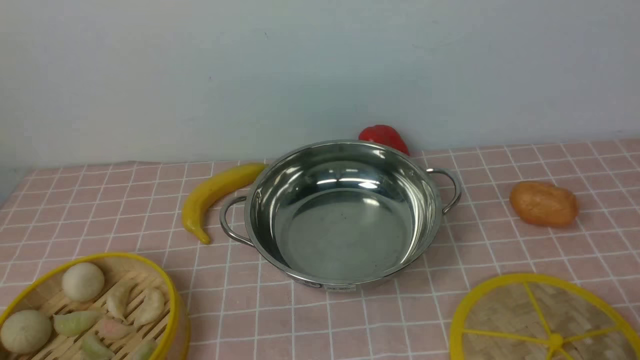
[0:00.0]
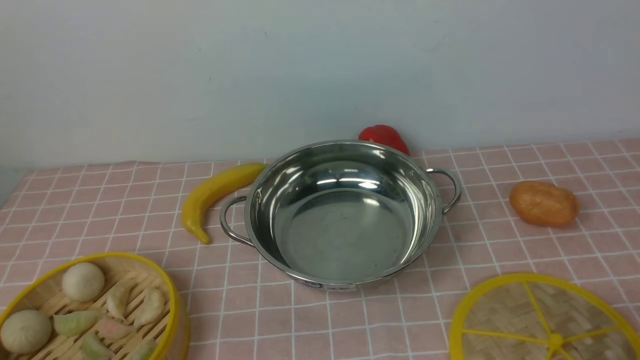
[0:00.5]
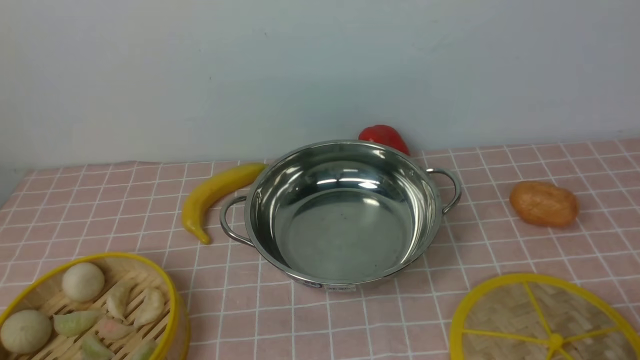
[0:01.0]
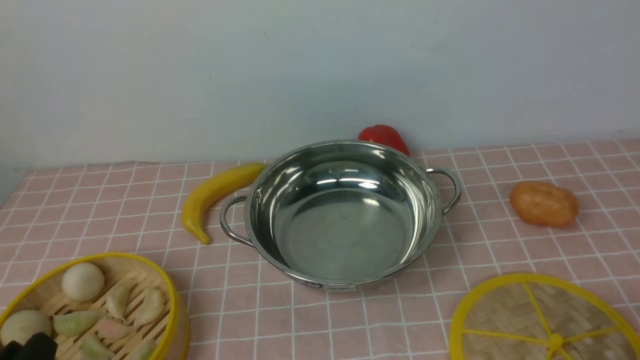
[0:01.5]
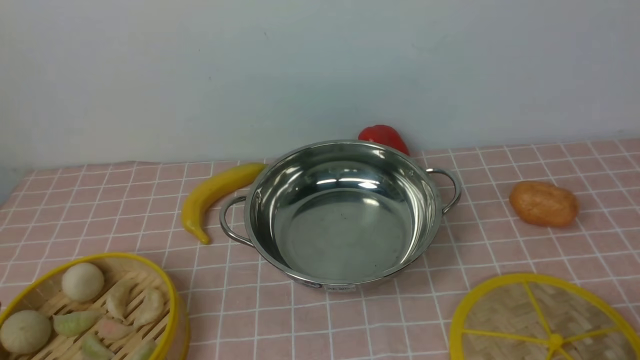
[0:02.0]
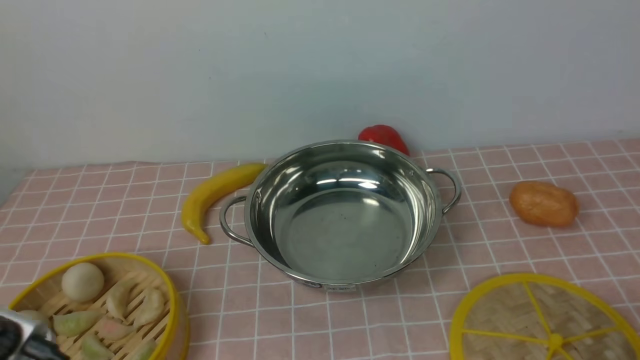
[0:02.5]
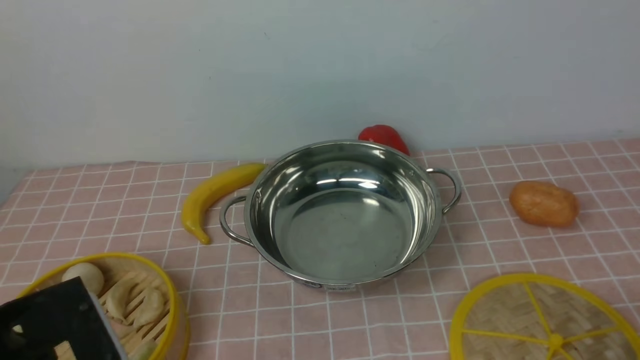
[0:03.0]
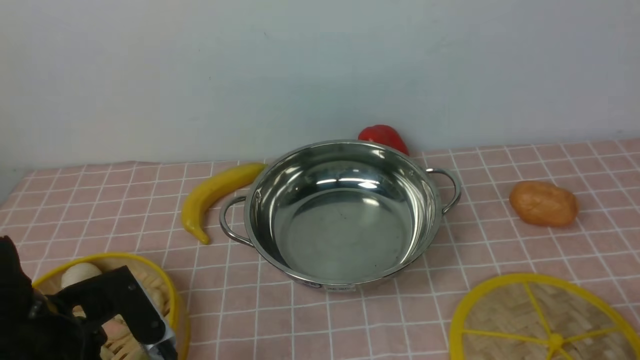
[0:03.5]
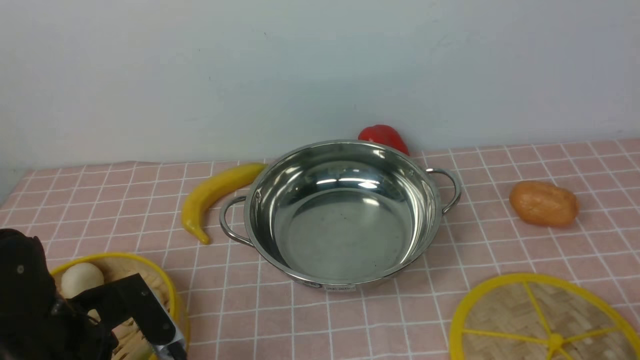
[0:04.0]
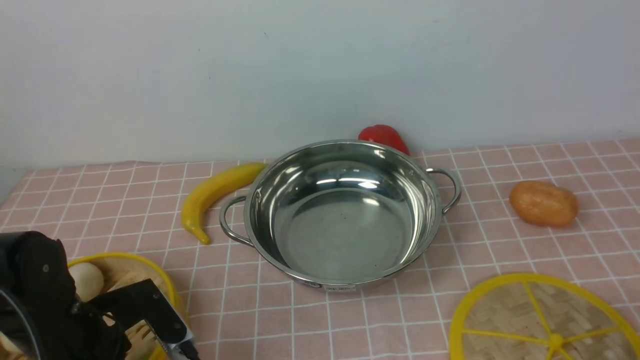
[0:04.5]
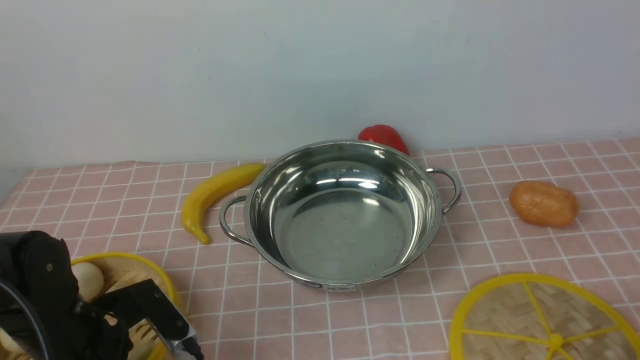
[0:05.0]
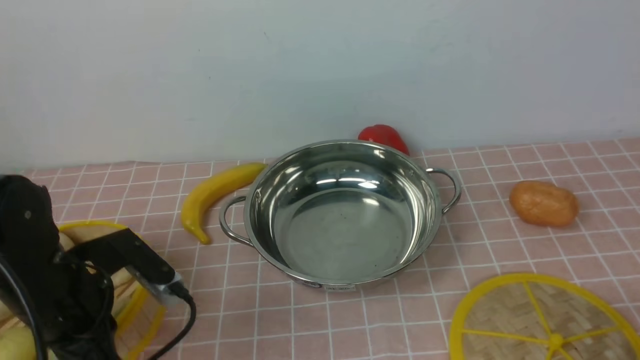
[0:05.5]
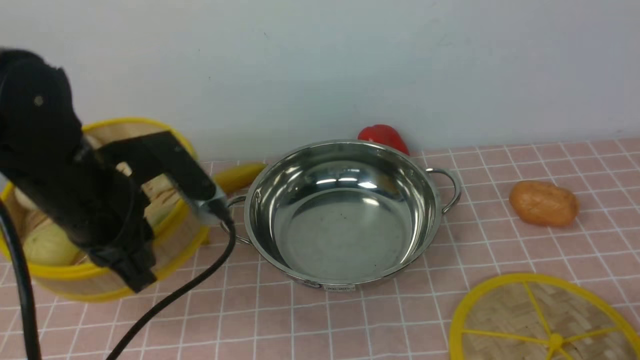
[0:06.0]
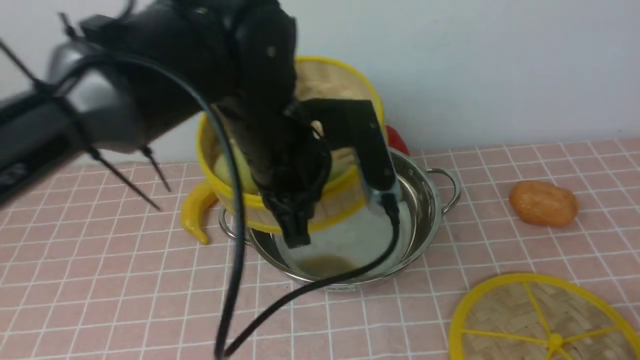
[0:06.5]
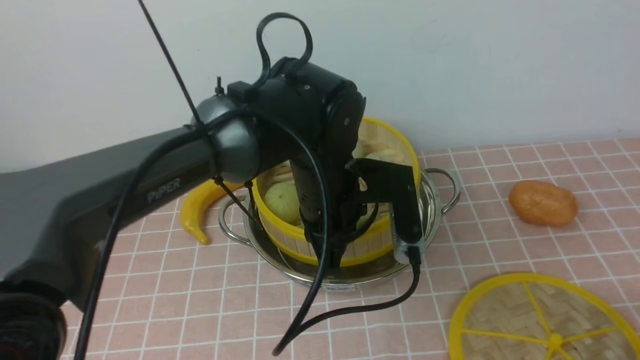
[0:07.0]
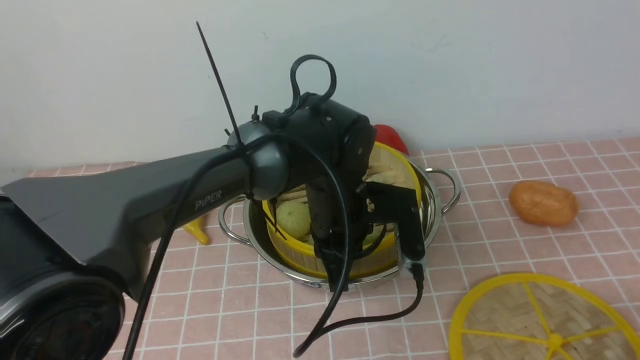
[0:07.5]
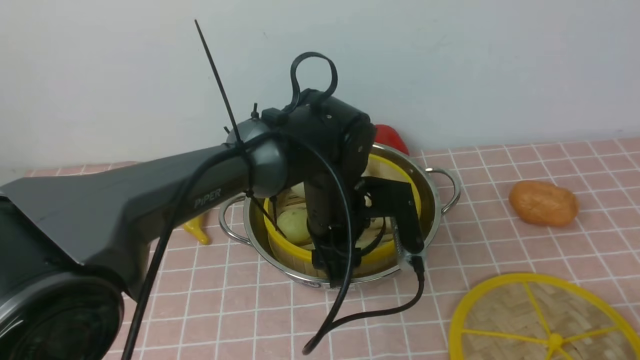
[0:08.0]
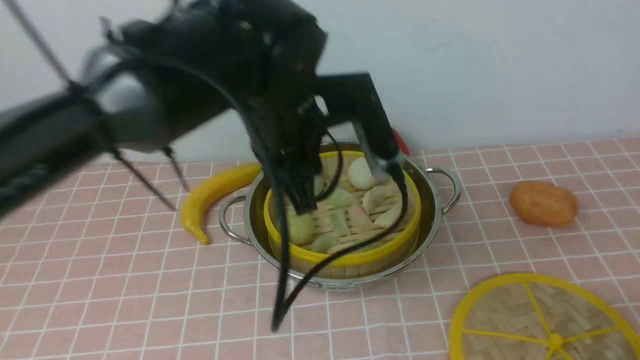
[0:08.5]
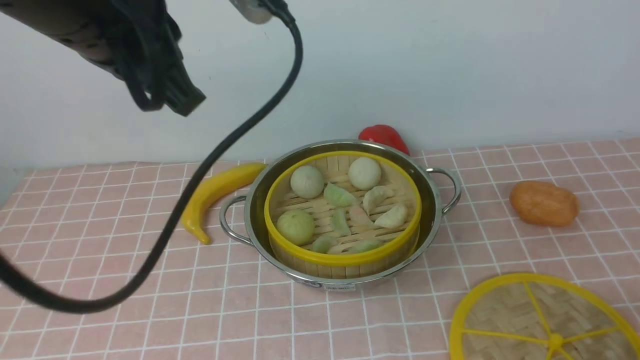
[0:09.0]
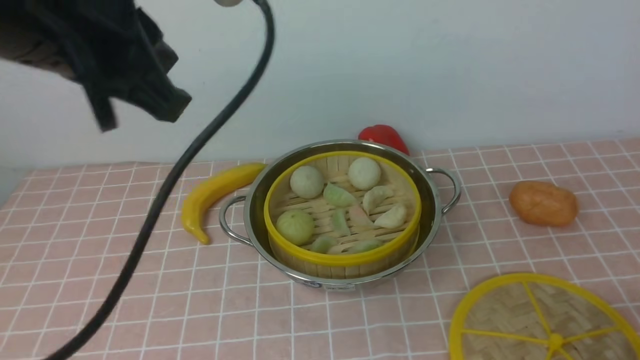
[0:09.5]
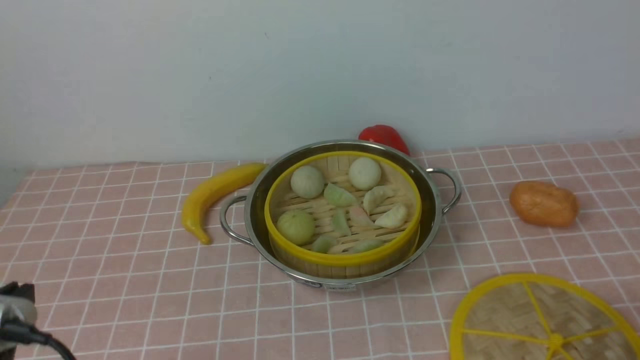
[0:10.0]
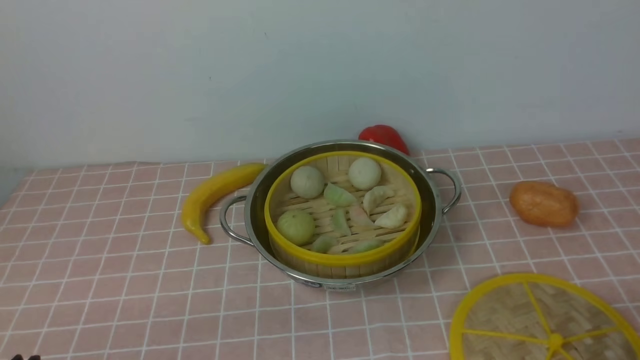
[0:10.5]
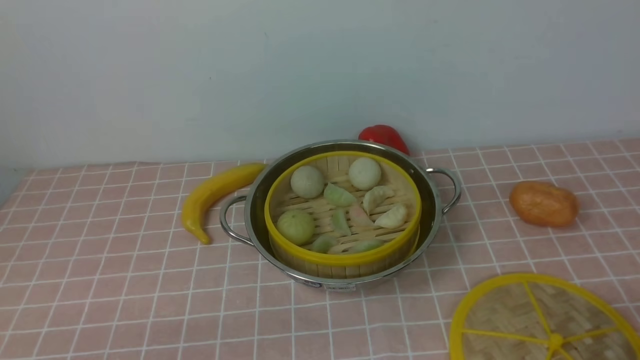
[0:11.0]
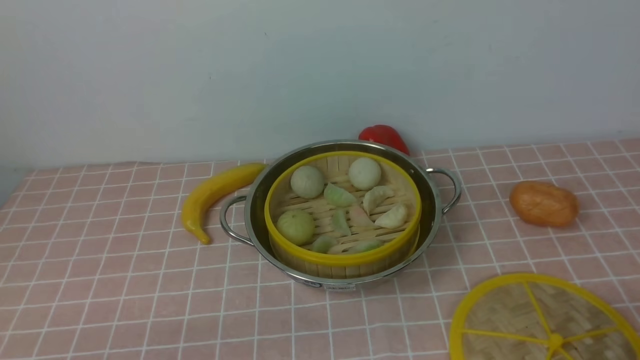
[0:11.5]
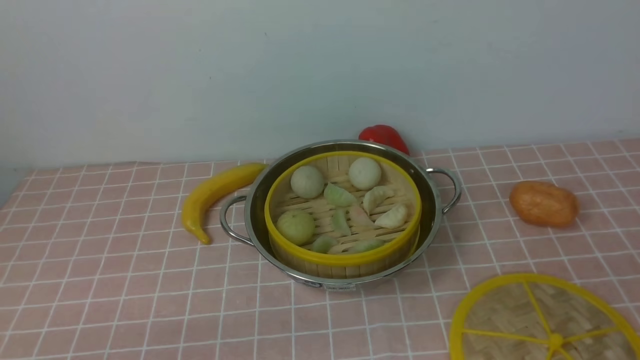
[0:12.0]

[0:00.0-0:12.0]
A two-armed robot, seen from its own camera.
Task of the whole recording: place the steamer in the pot on the pink tablecloth, and put the lid on the steamer.
Step, 0:00.0 to 0:05.5: use the left arm to lift the steamer closest to it.
Step, 0:06.0 to 0:08.0: use the left arm to put the steamer into the iron steamer pot in the middle.
0:02.0 to 0:04.0: The left gripper is displaced forward by about 15 cm, and opens up.
0:04.0 to 0:06.0: The left gripper shifts about 10 cm upward and forward, and closes up.
0:06.0 to 0:08.0: The left gripper is displaced to the right, downward and forward by approximately 25 cm, and opens its fingers.
0:08.0 to 0:10.0: The left gripper moves to the left, backward and upward, roughly 35 cm, and closes.
0:10.0 to 0:12.0: The left gripper moves downward and backward, some 15 cm.

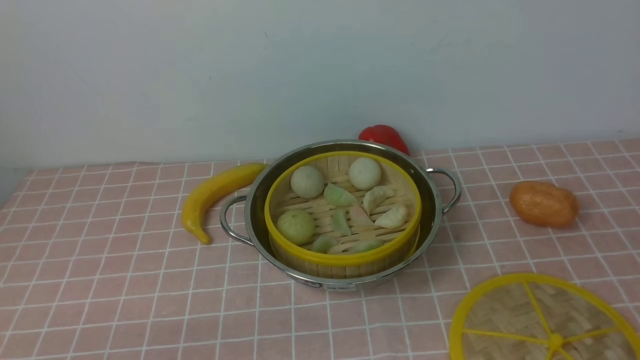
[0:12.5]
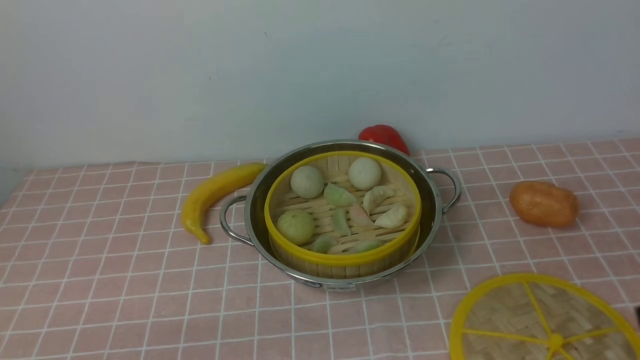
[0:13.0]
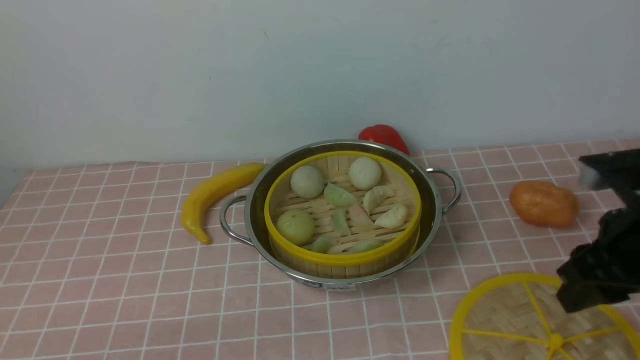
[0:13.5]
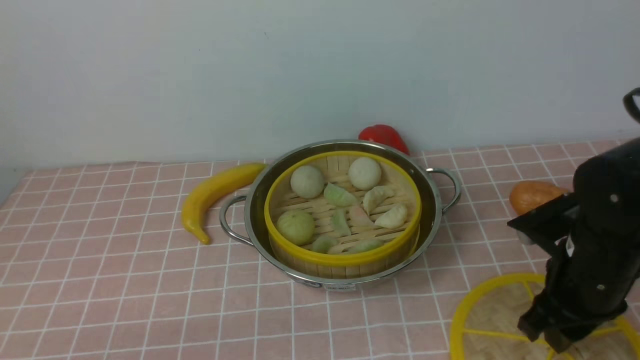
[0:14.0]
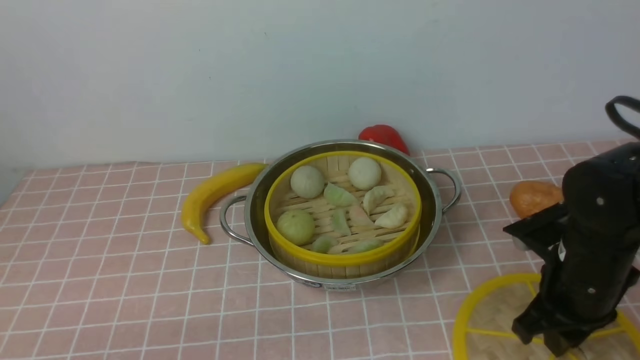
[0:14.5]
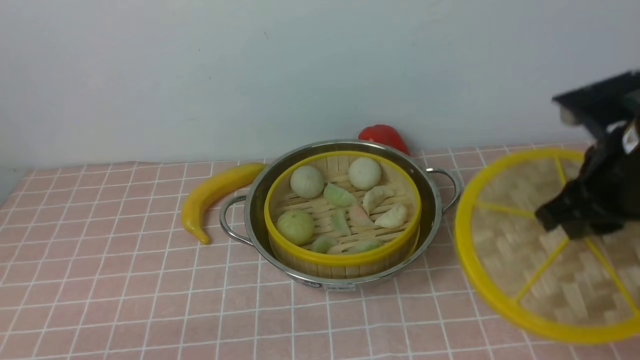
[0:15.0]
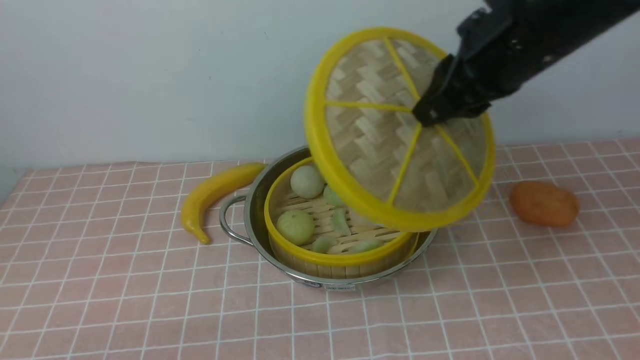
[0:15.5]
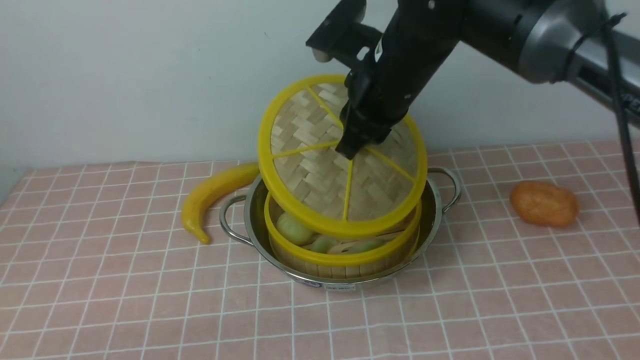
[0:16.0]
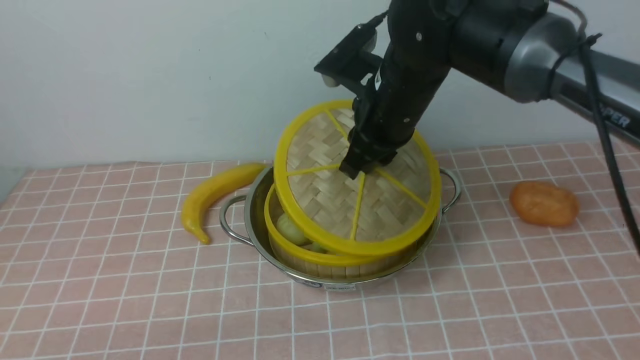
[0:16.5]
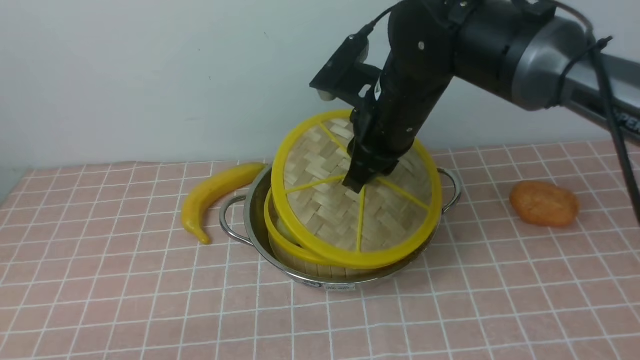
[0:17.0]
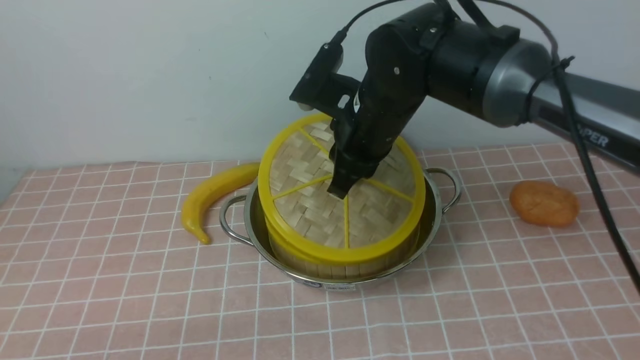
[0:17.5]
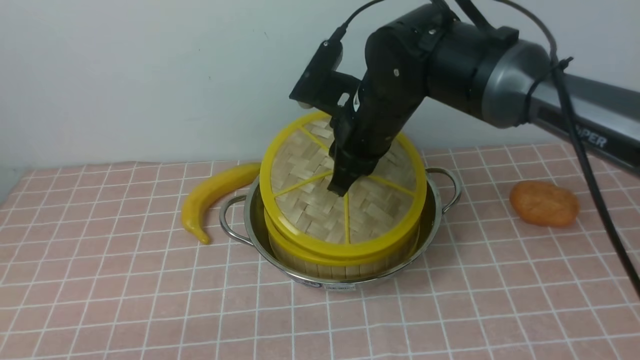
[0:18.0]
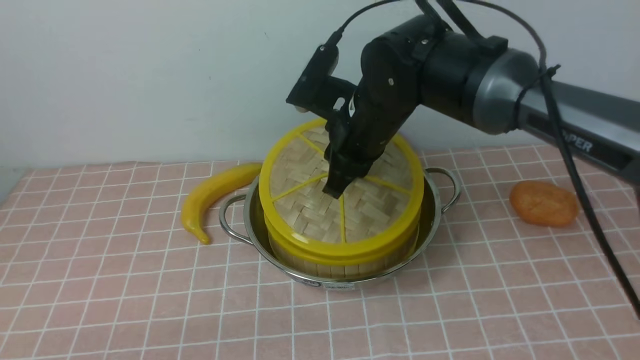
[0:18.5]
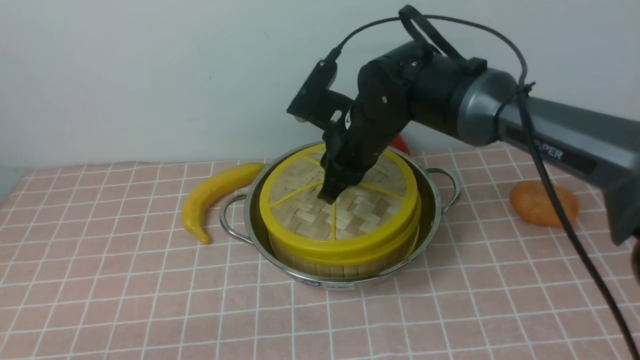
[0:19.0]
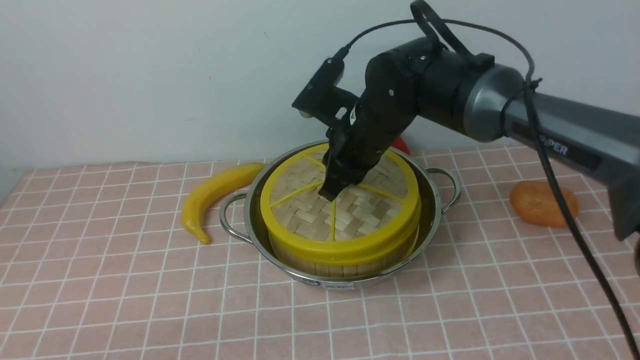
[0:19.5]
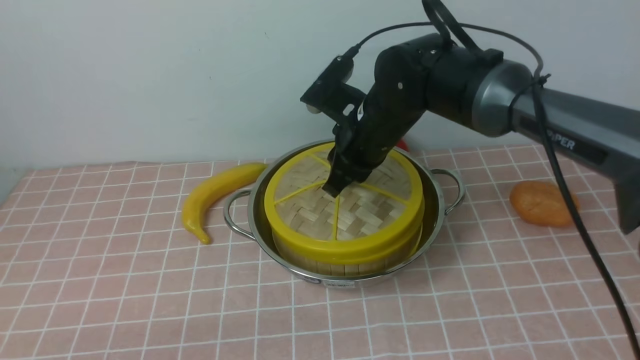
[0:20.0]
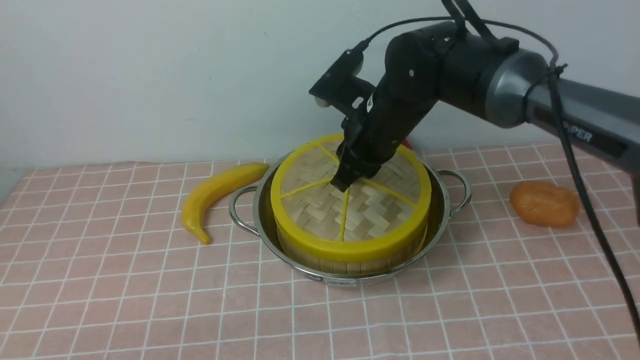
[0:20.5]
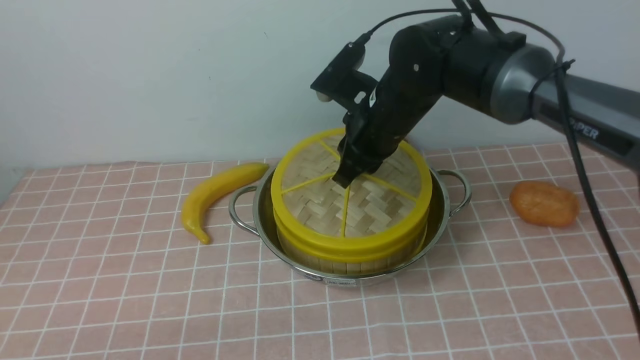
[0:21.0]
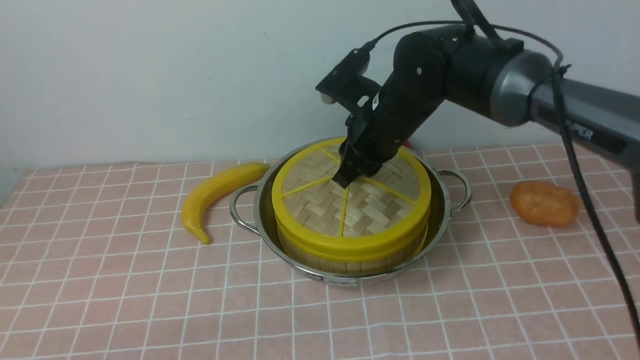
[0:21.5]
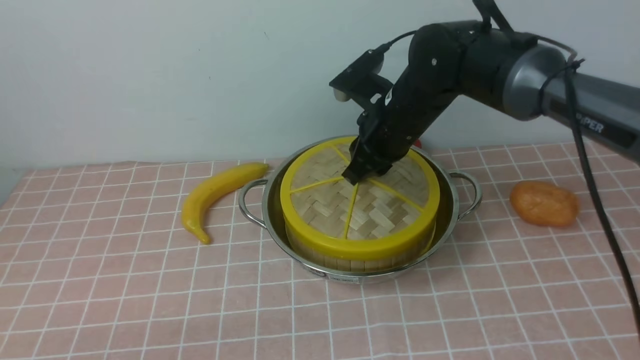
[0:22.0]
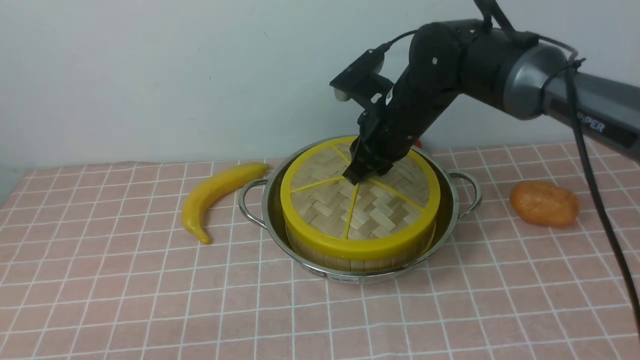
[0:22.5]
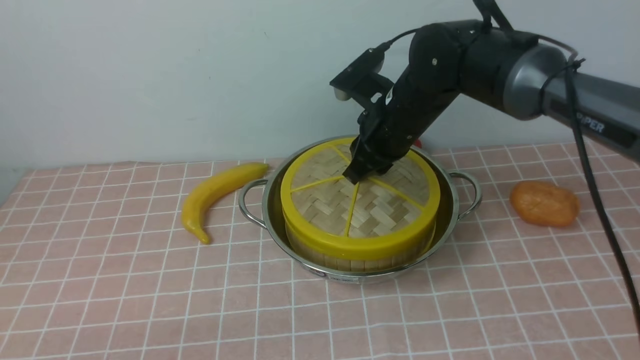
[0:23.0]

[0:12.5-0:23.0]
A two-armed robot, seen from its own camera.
Task of the whole recording: place the steamer in the pot on the pink tablecloth, and put the lid on the steamer.
Step, 0:12.5 to 0:14.5: use the right arm to lift the lid of the steamer.
0:12.5 to 0:14.5: The right gripper travels forward and downward by some 30 cm.
0:14.5 to 0:16.5: The right gripper moves to the left, forward and upward, roughly 25 cm.
0:16.5 to 0:19.0: The right gripper is displaced downward by about 5 cm.
0:19.0 to 0:23.0: There are only small adjustments of the grippers.
